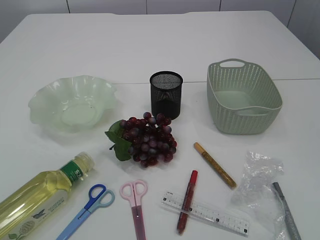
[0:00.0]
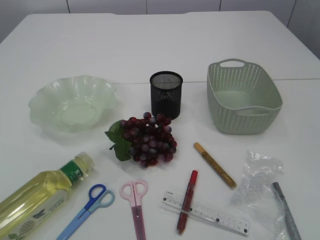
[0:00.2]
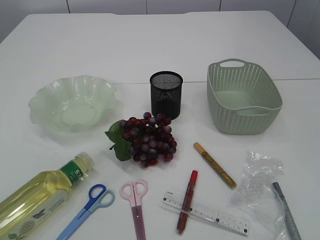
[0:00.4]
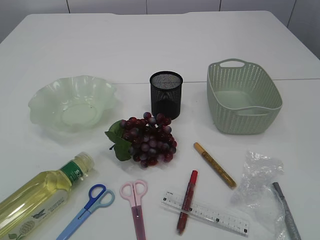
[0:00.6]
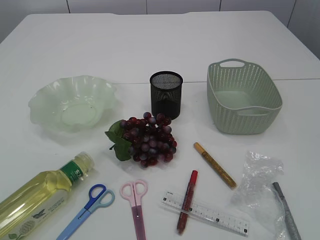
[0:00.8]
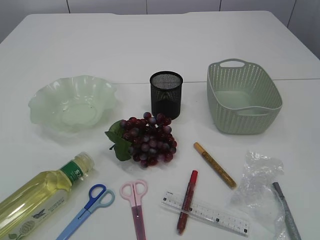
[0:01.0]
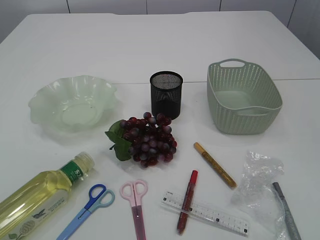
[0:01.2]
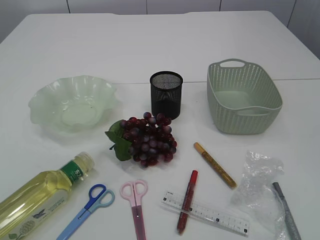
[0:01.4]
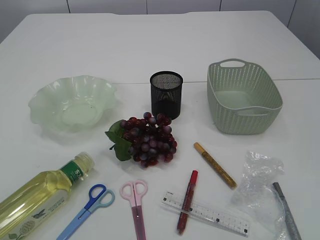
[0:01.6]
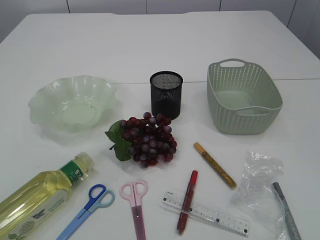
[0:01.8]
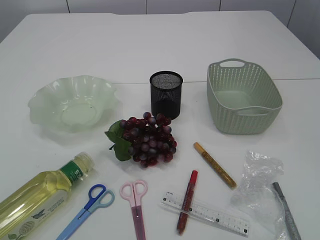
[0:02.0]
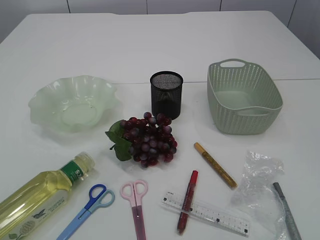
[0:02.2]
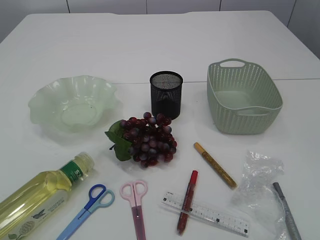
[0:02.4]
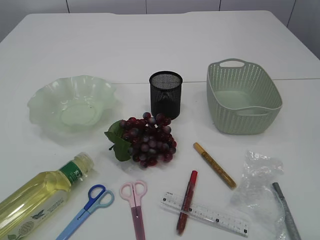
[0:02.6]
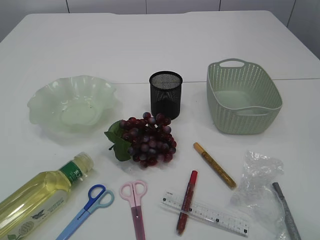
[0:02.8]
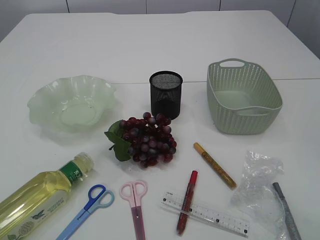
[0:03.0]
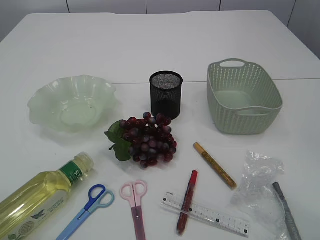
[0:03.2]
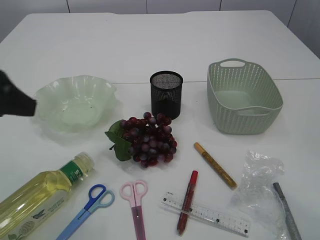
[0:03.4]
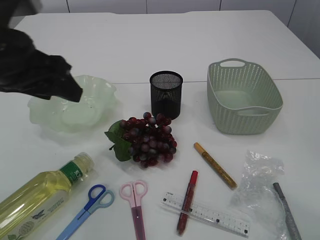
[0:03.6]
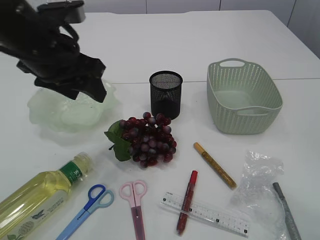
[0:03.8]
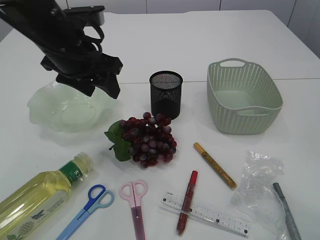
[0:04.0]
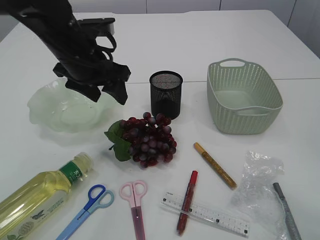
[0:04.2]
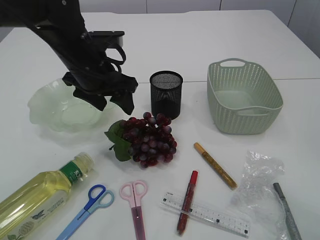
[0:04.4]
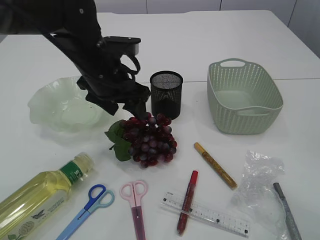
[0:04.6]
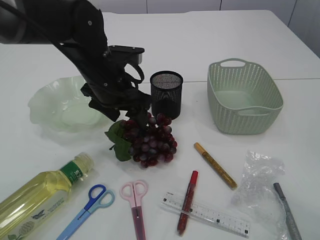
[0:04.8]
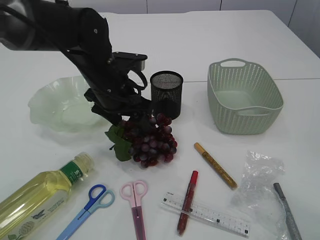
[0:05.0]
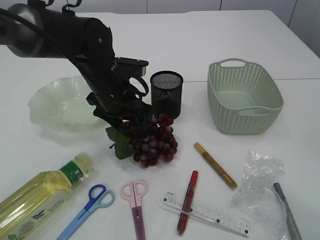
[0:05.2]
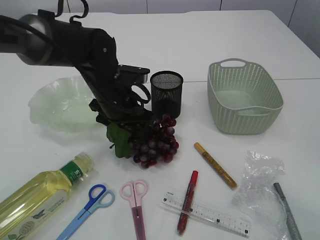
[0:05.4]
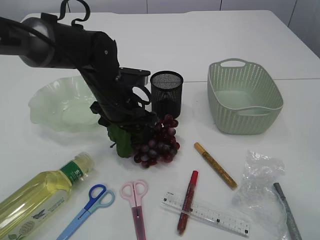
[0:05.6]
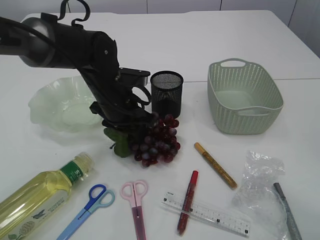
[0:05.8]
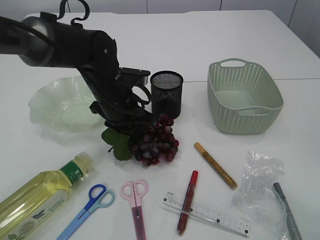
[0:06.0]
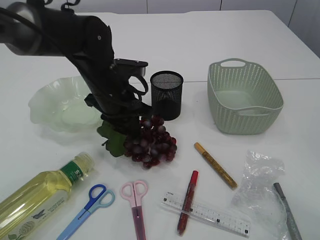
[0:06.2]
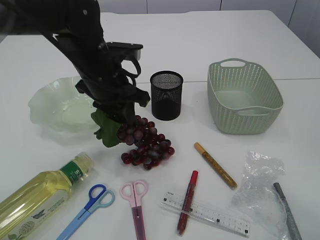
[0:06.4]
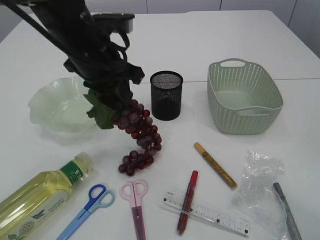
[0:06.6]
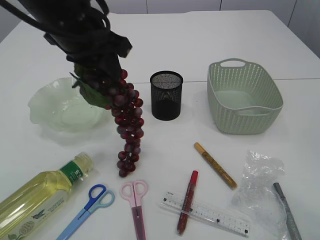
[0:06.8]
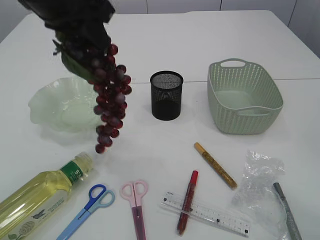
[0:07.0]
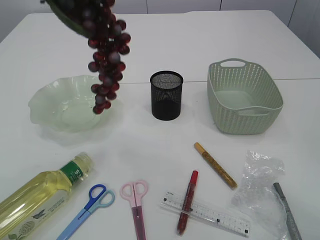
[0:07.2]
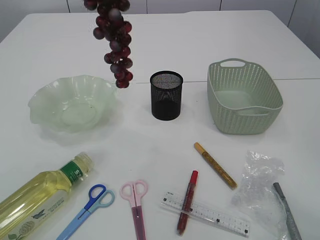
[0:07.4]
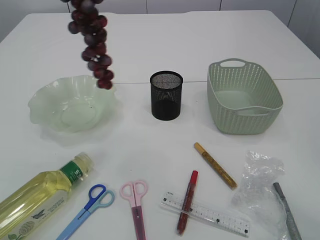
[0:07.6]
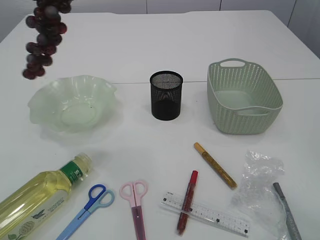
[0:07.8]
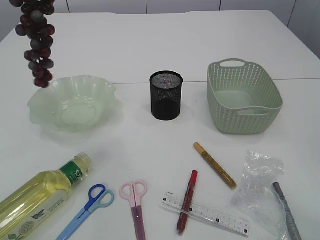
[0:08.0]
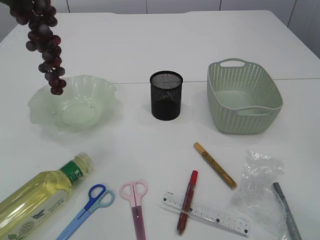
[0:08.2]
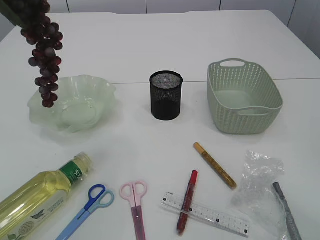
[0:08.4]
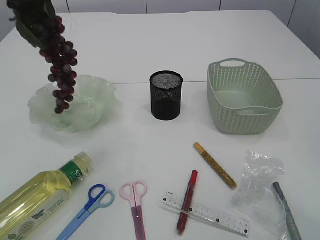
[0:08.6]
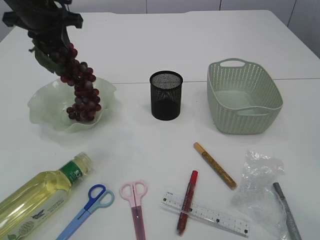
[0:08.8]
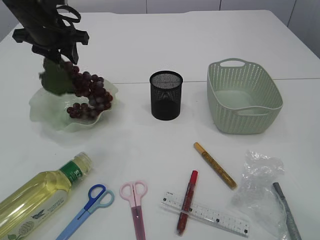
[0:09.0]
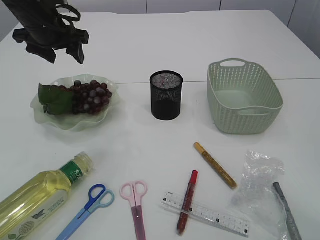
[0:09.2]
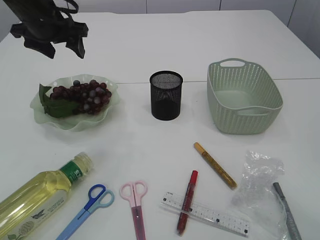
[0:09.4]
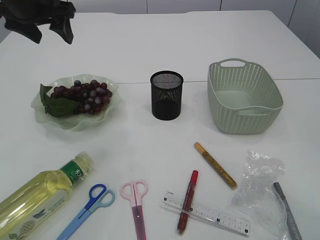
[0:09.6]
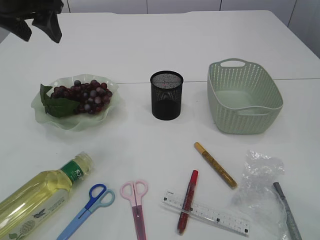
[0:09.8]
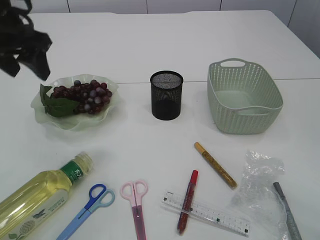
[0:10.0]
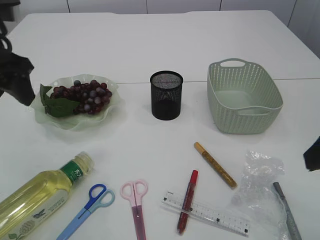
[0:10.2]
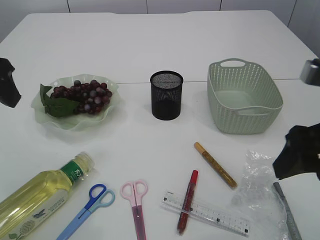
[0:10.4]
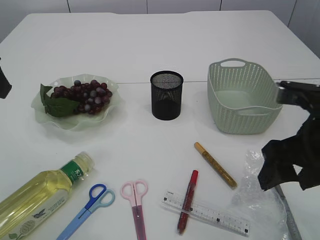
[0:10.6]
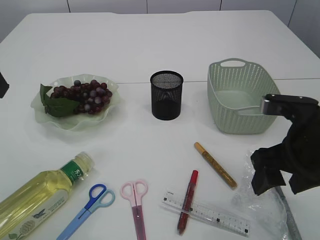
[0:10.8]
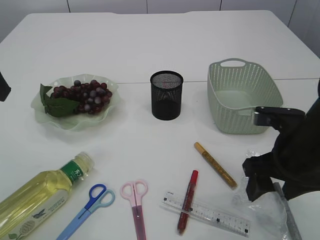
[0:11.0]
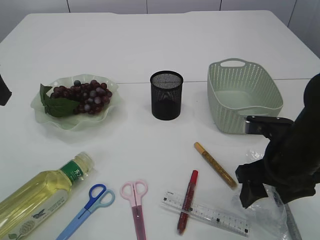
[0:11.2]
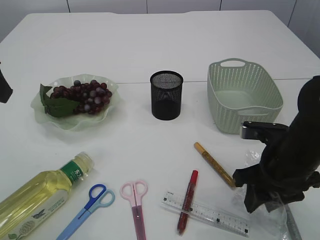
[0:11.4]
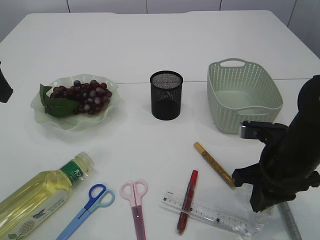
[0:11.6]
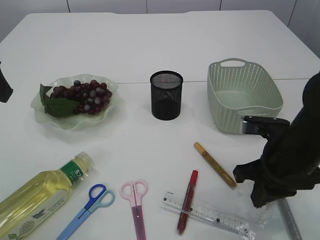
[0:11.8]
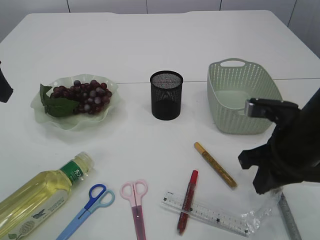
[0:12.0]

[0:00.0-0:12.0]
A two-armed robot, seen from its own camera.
Step, 0:00.0 to 0:06.8: Pick up the grapes.
Step, 0:07.0 to 0:09.4: Place the grapes in the plate.
0:03.0 to 0:04.4: The left gripper goes approximately 30 cm forward and to the right.
0:04.4 to 0:06.0: The left gripper goes roughly 5 cm downward, and closes.
0:06.0 to 0:07.6: The left gripper is displaced upward by approximately 30 cm.
0:07.6 to 0:09.0: The left gripper goes some 25 cm downward and forward.
0:09.0 to 0:10.4: The right gripper goes some 10 cm forward and to the left, while the left gripper goes approximately 20 cm backward, and opens up.
0:10.4 to 0:12.0: The right gripper shifts some 10 cm downward and forward, and closes up.

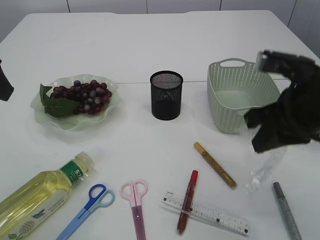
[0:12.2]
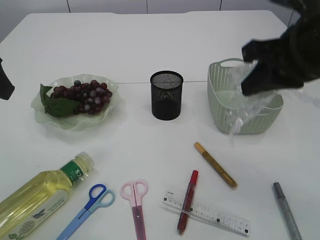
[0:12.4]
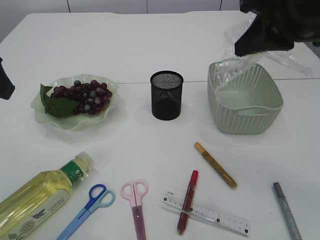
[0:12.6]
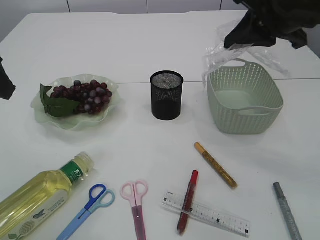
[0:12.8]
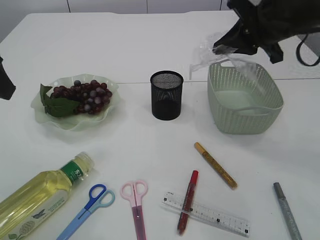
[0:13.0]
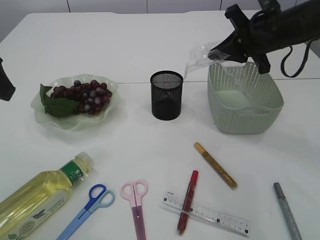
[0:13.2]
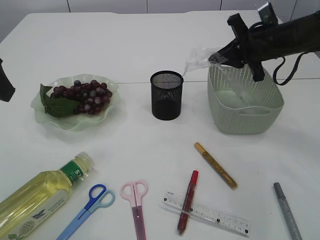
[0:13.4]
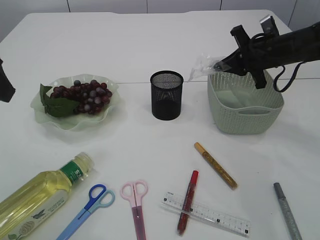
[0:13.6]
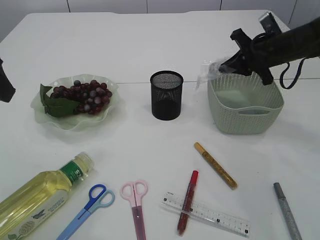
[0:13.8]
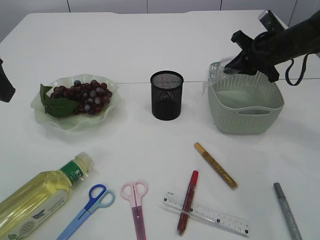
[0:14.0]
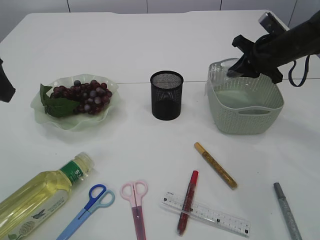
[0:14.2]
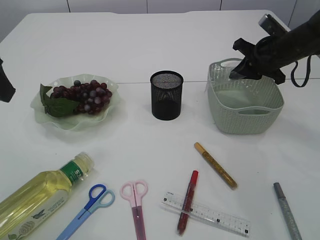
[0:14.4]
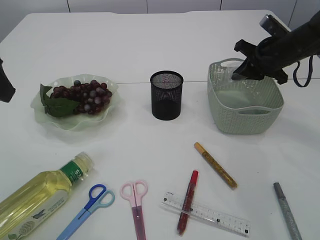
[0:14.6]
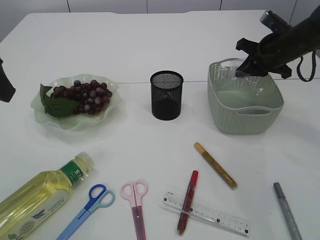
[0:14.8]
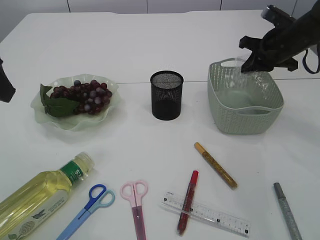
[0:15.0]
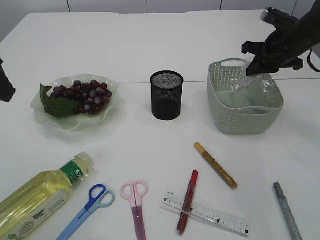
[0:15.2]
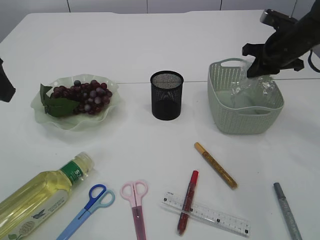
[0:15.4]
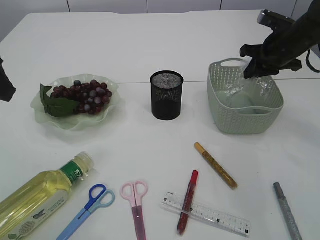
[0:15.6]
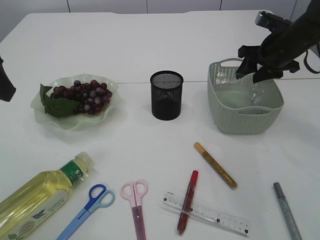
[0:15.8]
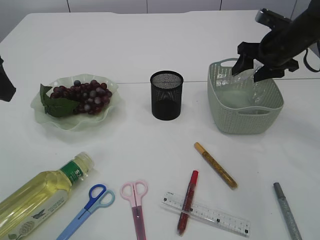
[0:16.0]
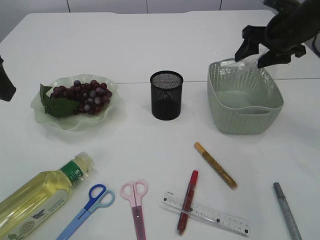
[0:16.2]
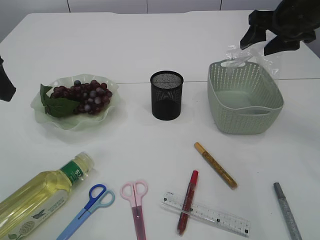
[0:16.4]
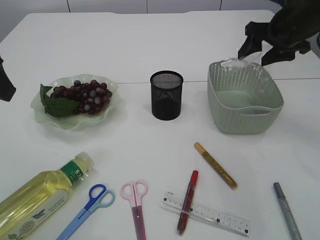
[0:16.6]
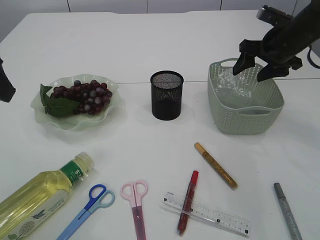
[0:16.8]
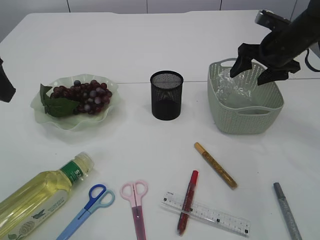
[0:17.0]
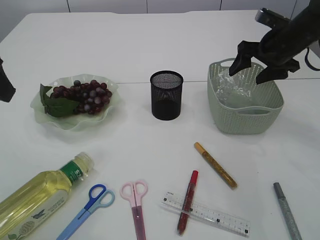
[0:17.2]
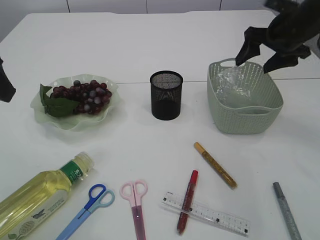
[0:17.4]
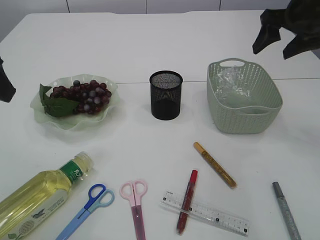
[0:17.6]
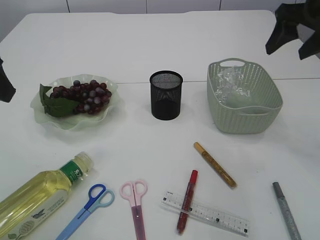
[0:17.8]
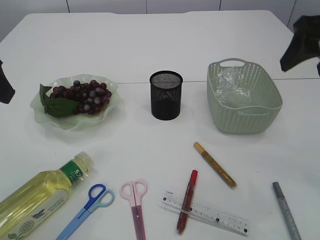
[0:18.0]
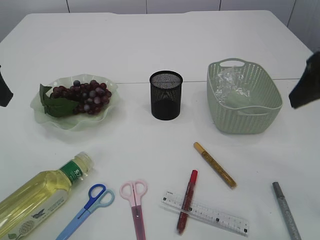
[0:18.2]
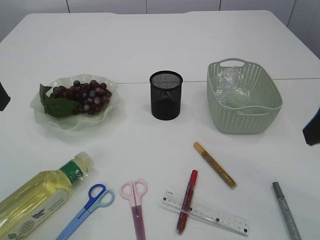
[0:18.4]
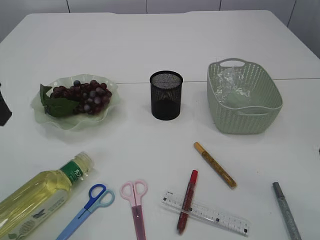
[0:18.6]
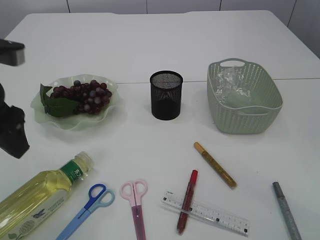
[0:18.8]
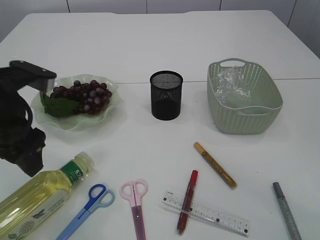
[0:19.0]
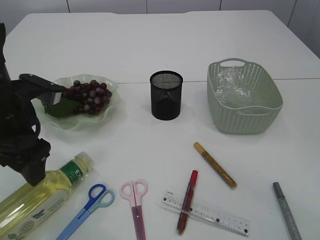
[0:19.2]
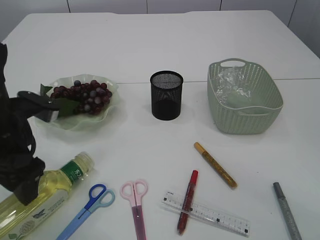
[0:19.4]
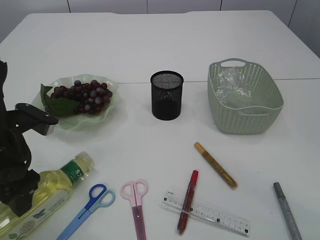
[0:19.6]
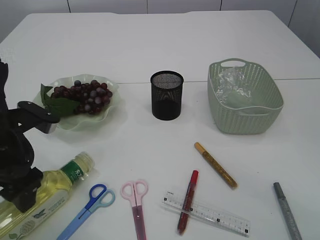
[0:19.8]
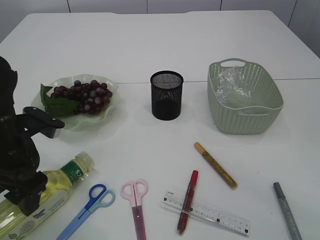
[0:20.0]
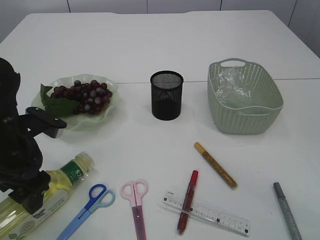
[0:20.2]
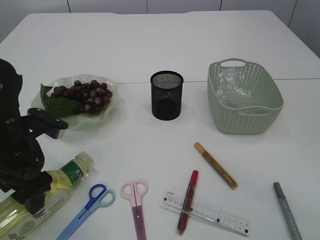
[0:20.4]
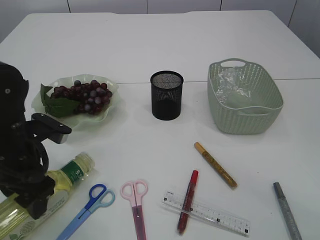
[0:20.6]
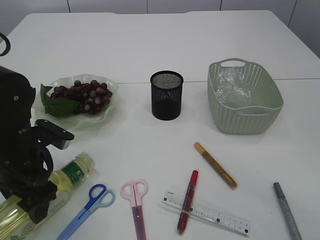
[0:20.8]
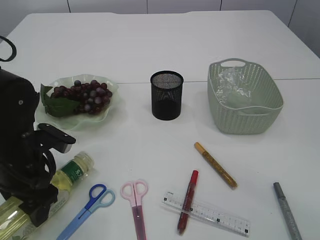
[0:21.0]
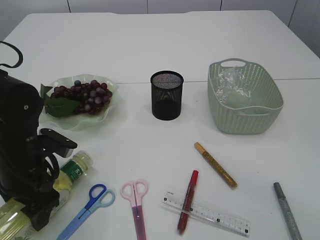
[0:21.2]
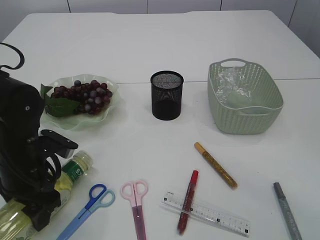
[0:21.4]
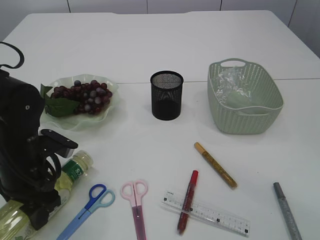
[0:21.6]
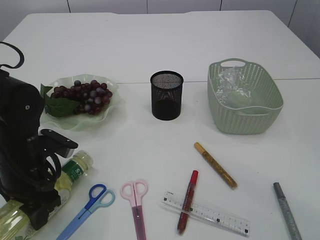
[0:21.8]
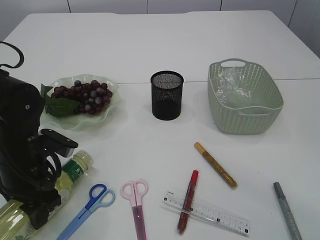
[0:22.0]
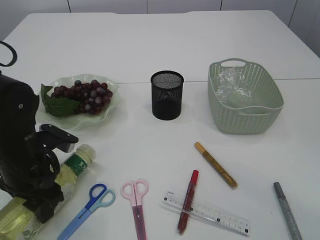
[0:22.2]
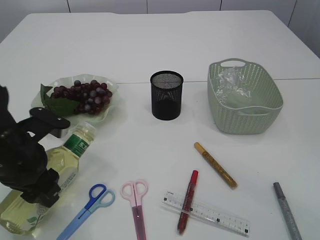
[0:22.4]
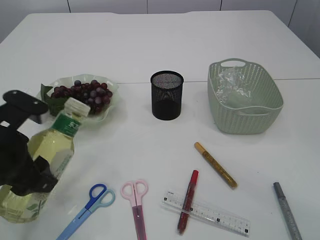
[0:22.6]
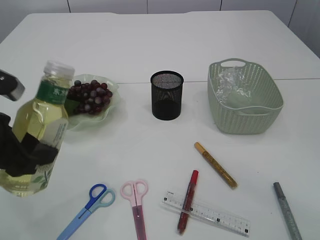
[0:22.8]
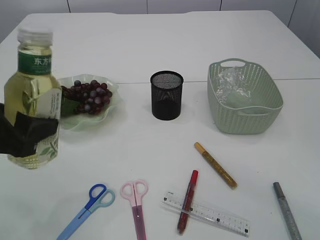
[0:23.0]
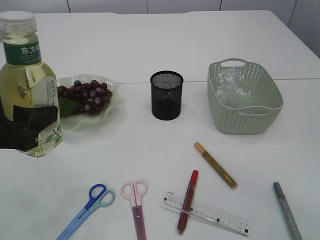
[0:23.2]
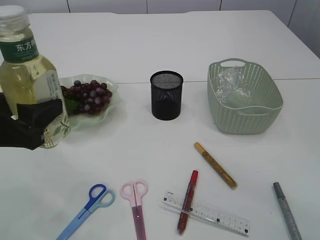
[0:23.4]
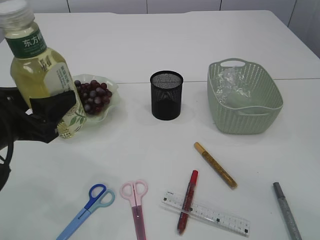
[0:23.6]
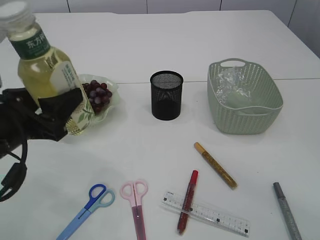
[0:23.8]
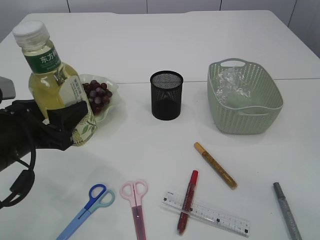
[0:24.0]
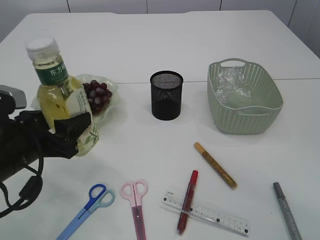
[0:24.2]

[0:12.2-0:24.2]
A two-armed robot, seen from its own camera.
Step, 0:12.4 to 0:17.8: Place the plastic in the basket.
Step, 0:18.0 to 0:22.8: Pick up the bottle with the left arm.
0:12.2 to 0:13.8: The right gripper moves forward, approximately 20 cm.
0:15.2 to 0:16.6: The right gripper changes place by some 5 cm, and opens its fingers.
0:16.6 to 0:18.2: The right gripper heads backward, covering approximately 20 cm.
0:18.2 to 0:19.8: The right gripper heads backward, covering about 10 cm. The left gripper is displaced downward by approximately 15 cm.
0:19.8 to 0:21.2: The left gripper goes roughly 5 cm downward.
0:21.2 to 0:22.6: The left gripper heads upward, covering some 5 cm.
0:22.6 to 0:24.2: The left gripper travels upward and back again, roughly 5 cm each way.
